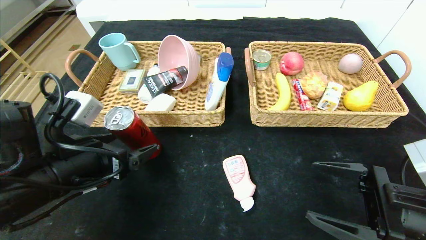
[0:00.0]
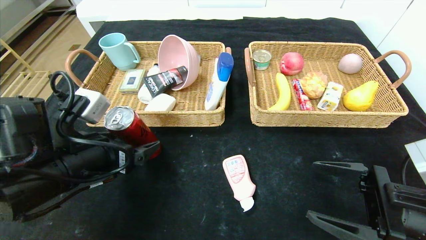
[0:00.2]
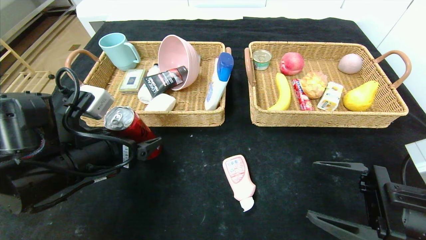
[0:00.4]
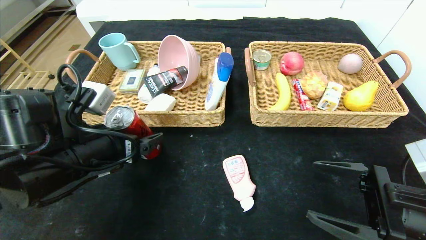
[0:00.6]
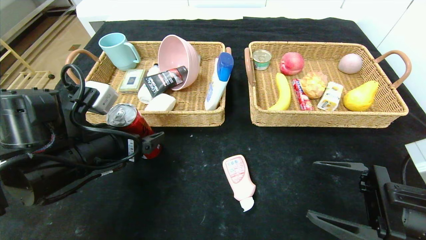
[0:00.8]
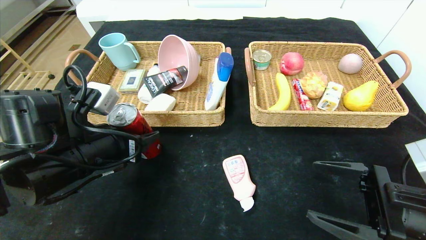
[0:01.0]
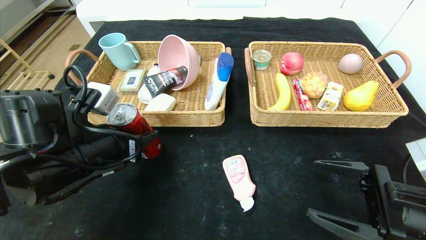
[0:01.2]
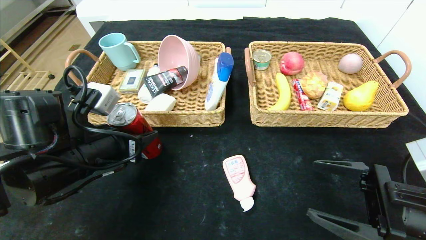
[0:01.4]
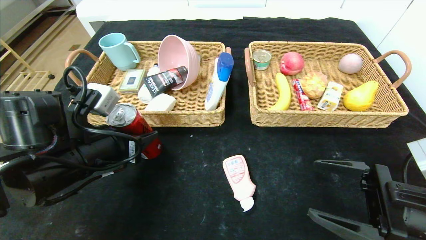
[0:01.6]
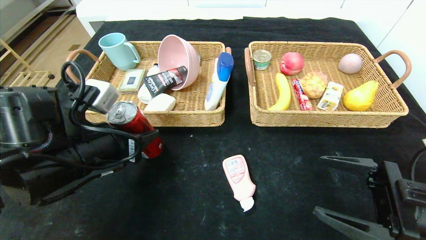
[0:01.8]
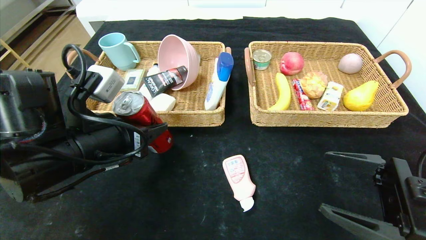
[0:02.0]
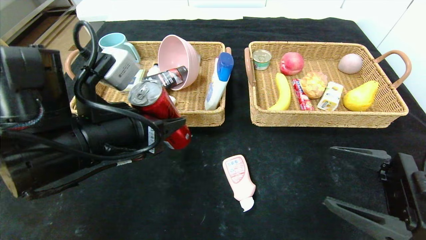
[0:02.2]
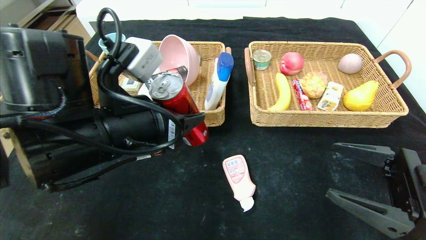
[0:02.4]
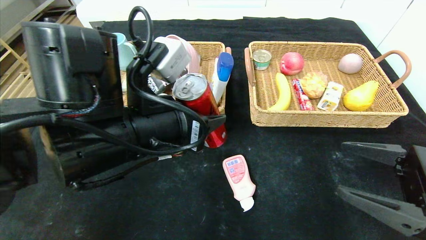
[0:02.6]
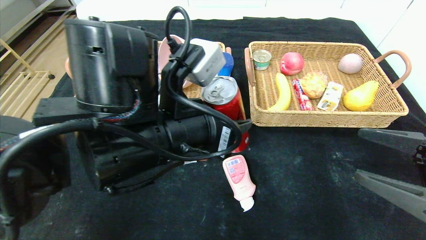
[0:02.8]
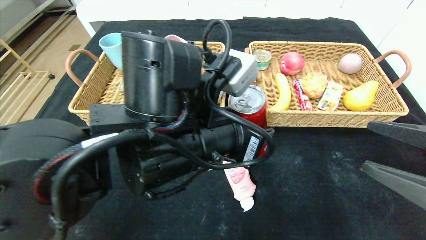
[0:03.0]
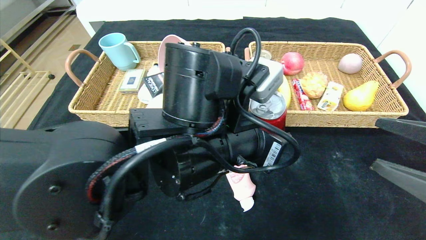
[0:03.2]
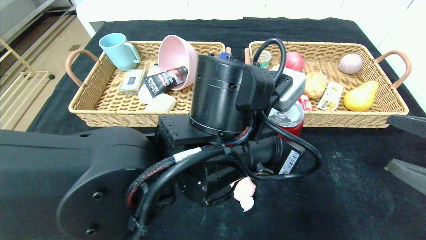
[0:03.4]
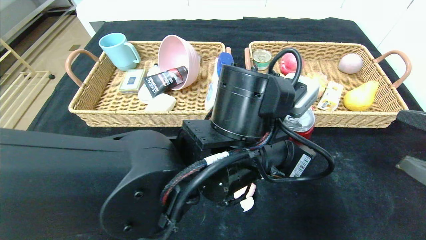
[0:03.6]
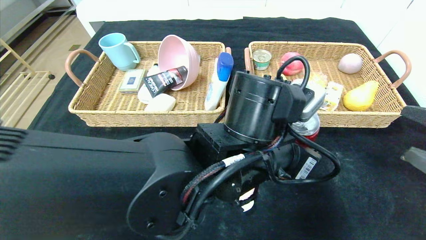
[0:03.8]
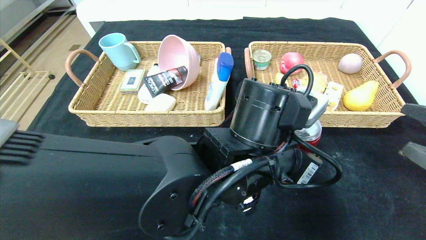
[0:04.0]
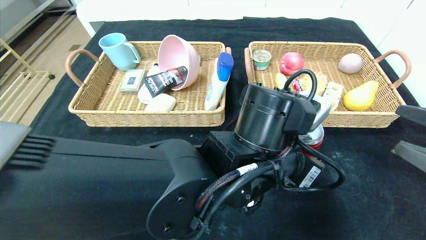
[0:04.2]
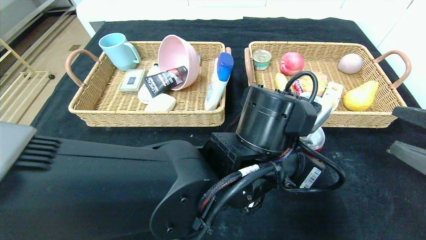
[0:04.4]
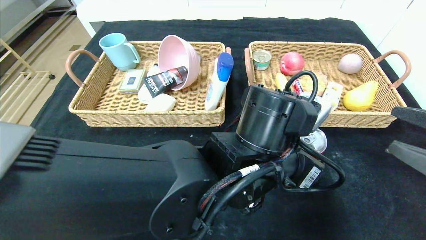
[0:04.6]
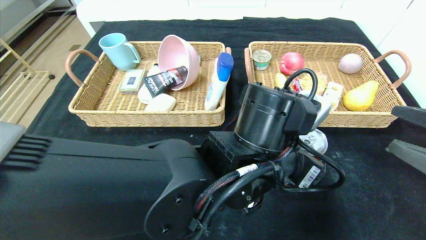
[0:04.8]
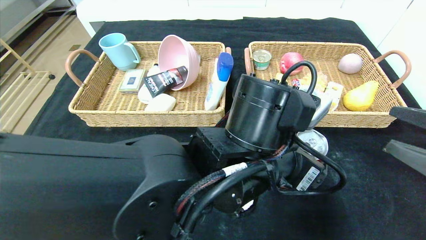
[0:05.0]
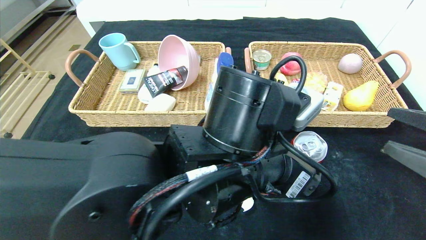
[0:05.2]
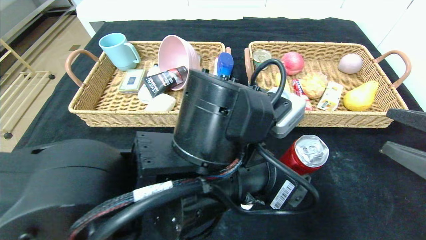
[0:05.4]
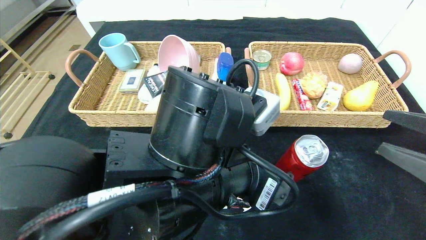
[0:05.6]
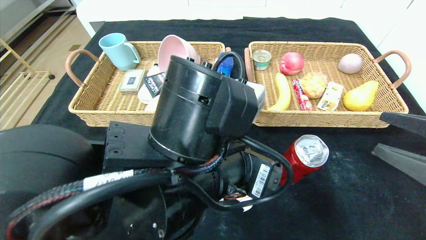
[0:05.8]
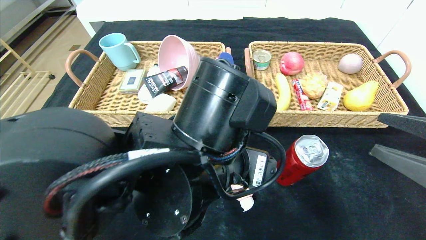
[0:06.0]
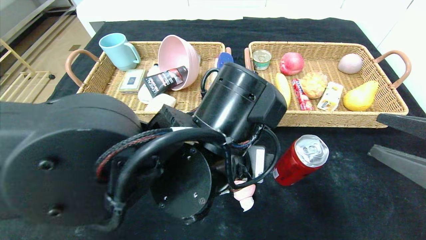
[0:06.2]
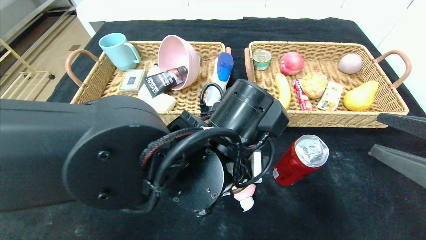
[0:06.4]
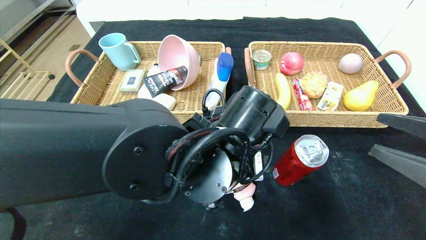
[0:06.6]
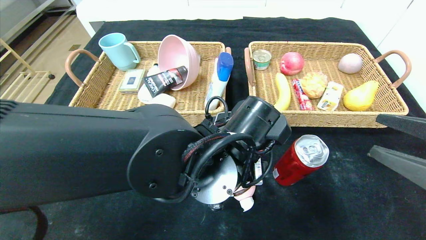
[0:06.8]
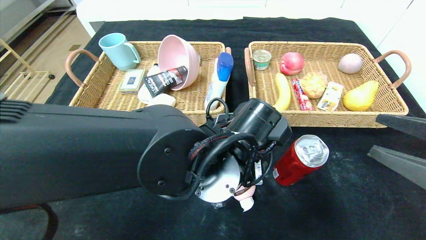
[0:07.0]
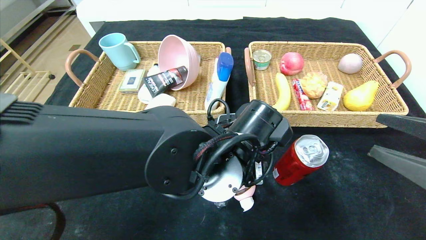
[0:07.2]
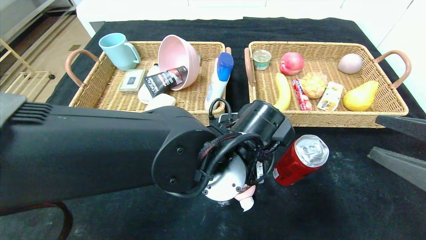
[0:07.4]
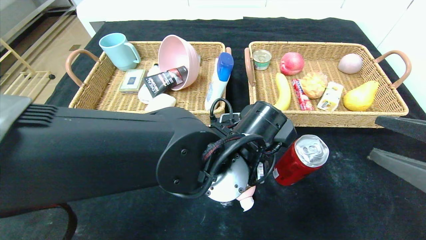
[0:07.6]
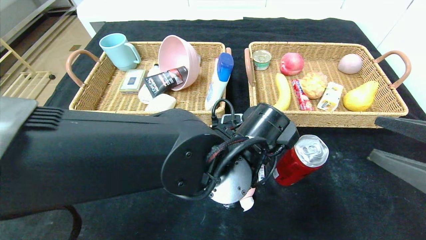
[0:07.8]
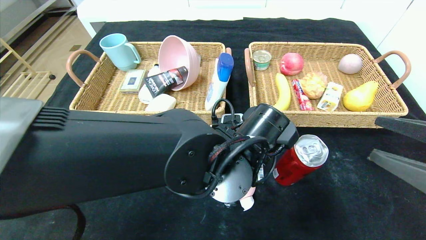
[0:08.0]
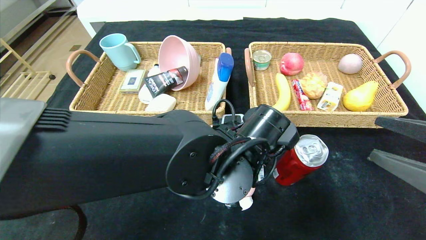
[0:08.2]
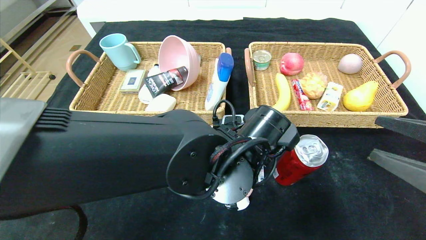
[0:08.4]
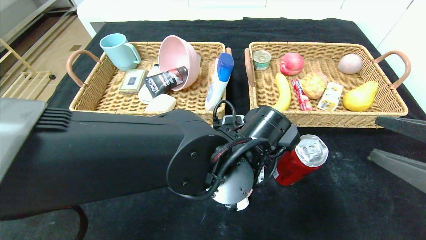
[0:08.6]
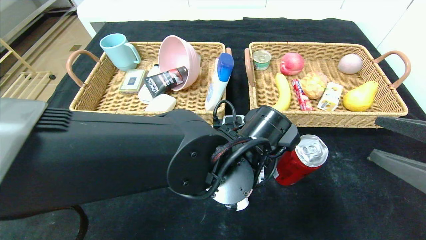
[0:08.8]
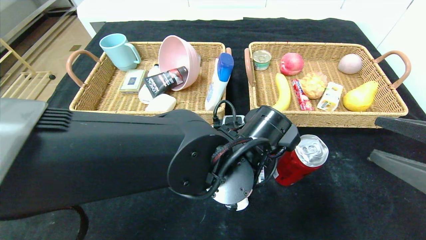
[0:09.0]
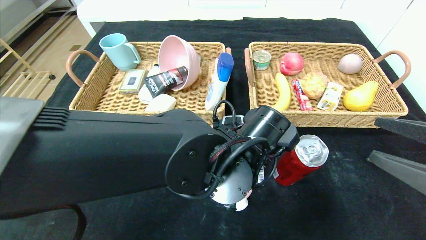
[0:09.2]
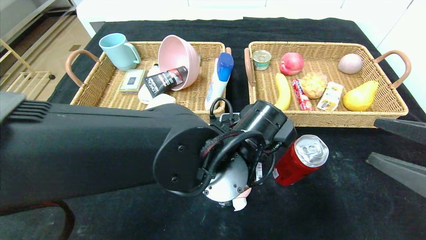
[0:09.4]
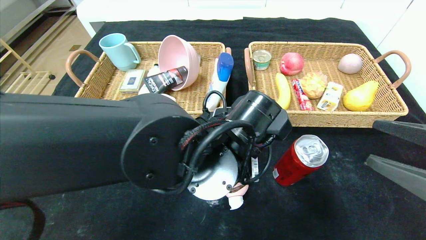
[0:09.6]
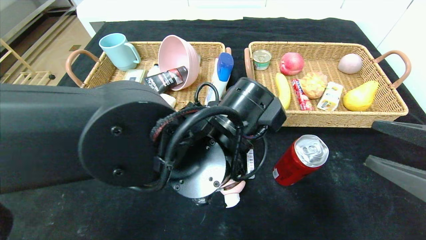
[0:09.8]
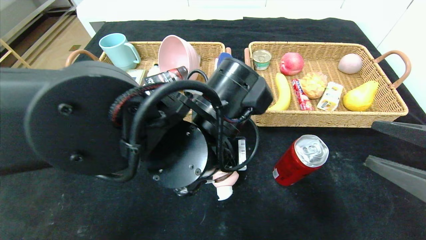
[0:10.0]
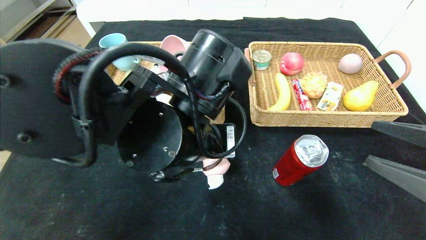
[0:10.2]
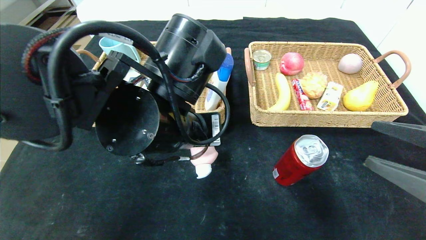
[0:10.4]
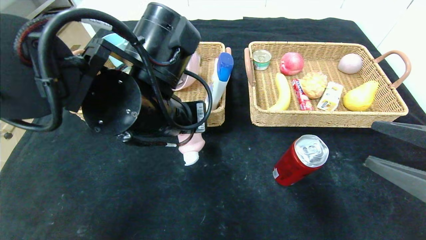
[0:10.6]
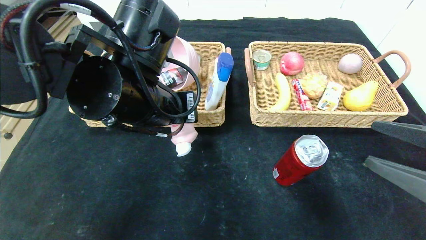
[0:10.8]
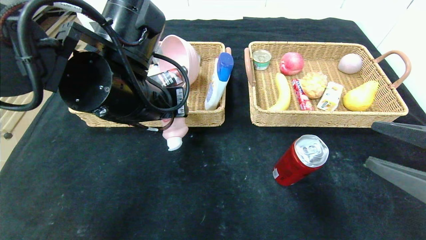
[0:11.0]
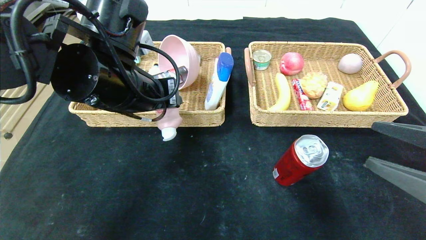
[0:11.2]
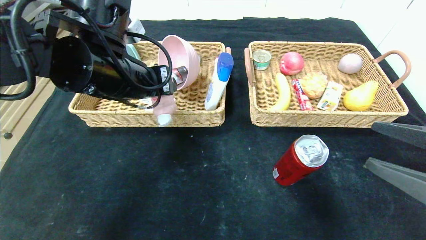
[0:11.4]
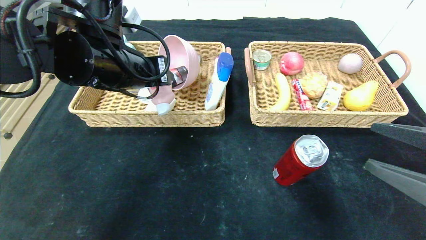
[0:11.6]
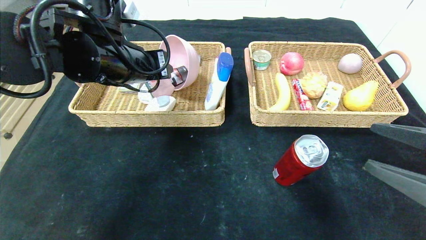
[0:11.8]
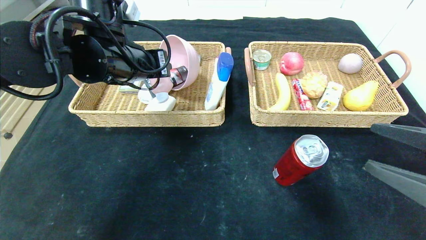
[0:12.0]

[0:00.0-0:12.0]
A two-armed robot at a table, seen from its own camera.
Step, 0:00.0 to 0:04.8: Place the canned cola in the center of the table.
0:00.0 to 0:01.6: The left gripper closes up.
0:01.6 to 0:03.0: The right gripper is displaced upward by roughly 5 cm. Meanwhile the left gripper travels to the right by roughly 20 cm.
0:03.0 to 0:04.4: The left gripper moves to the right, about 10 cm.
0:04.4 to 0:06.0: The left gripper shifts approximately 5 cm to the left, and opens.
0:06.0 to 0:07.6: The left gripper shifts by about 10 cm.
0:07.6 to 0:09.0: The left gripper closes.
0:09.0 to 0:10.4: The left gripper moves upward and to the left, some 15 cm.
0:10.4 to 0:12.0: The left gripper goes roughly 15 cm forward and to the left.

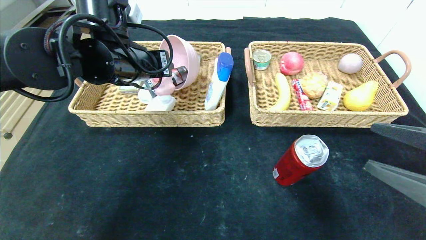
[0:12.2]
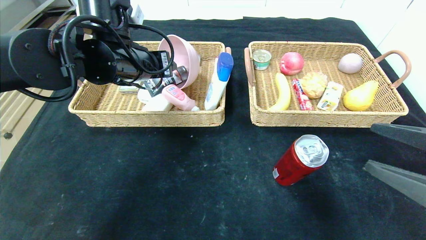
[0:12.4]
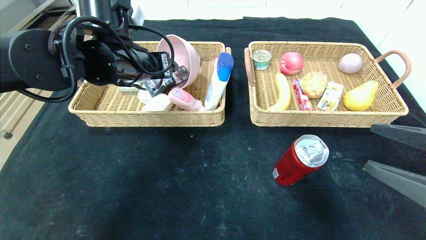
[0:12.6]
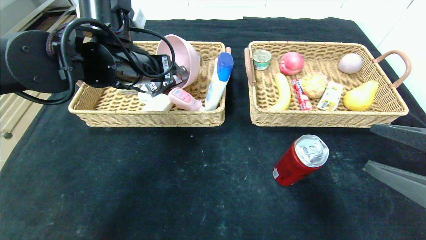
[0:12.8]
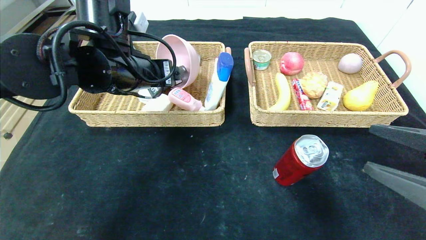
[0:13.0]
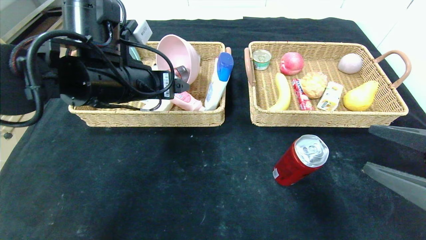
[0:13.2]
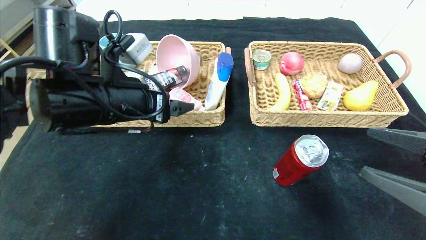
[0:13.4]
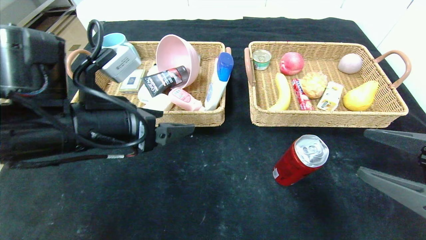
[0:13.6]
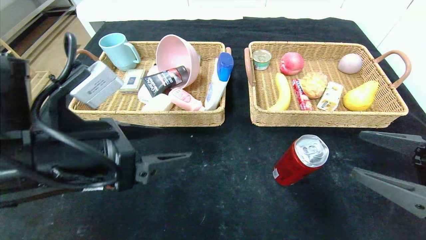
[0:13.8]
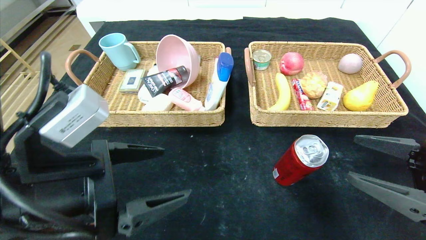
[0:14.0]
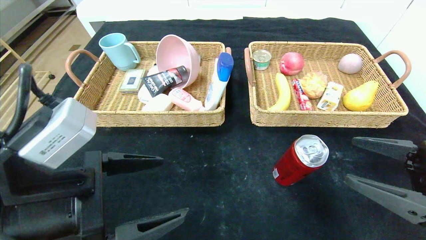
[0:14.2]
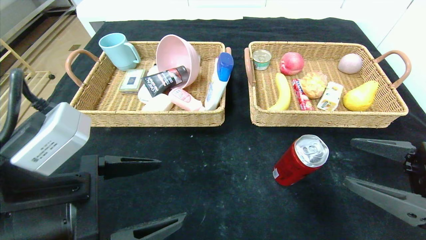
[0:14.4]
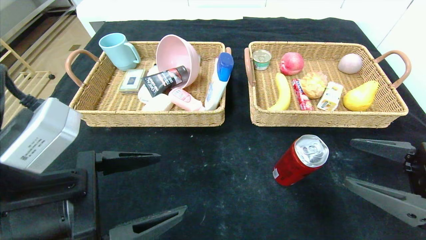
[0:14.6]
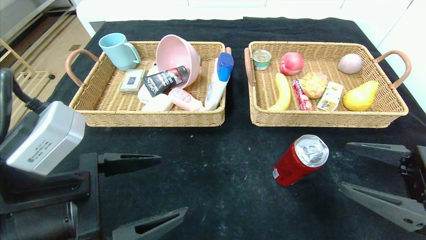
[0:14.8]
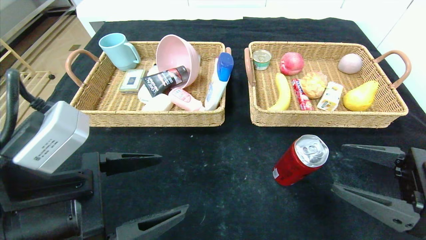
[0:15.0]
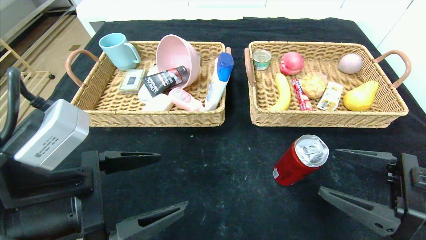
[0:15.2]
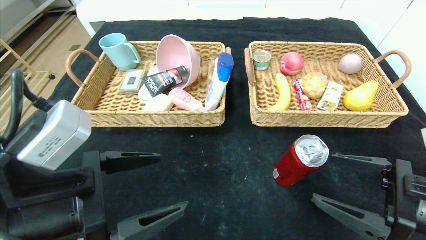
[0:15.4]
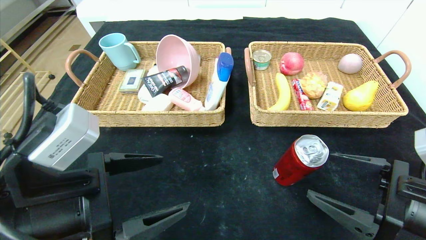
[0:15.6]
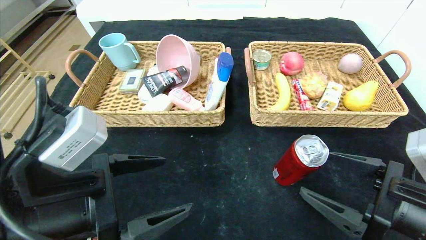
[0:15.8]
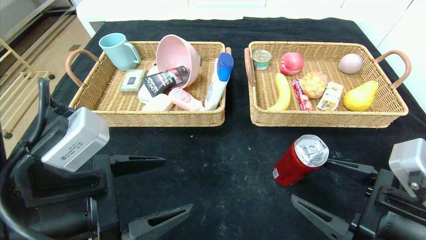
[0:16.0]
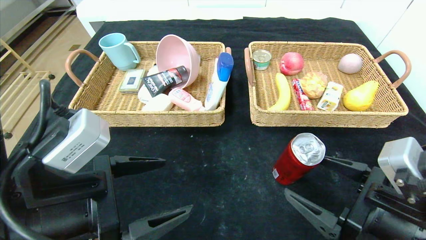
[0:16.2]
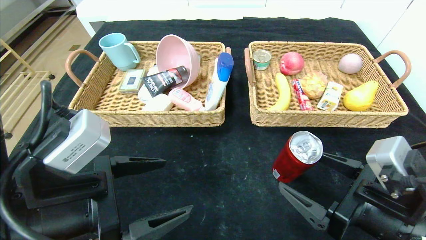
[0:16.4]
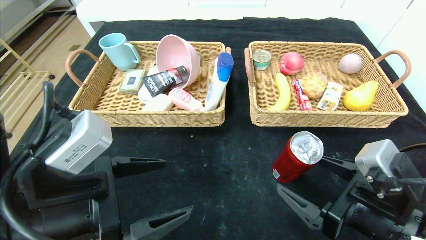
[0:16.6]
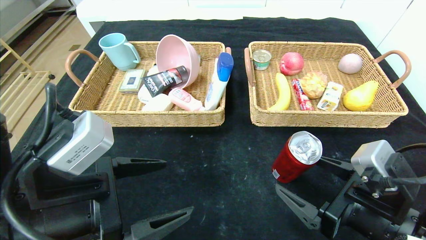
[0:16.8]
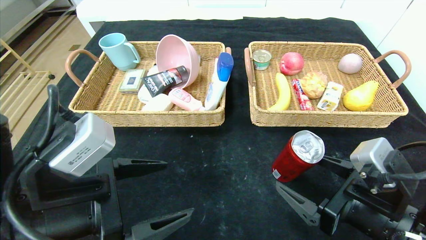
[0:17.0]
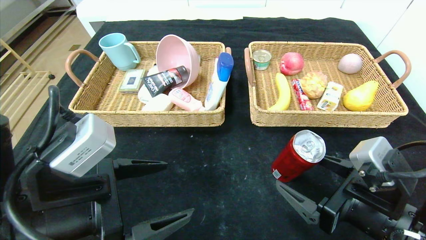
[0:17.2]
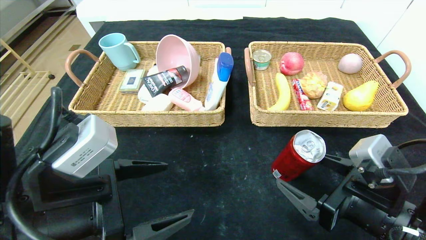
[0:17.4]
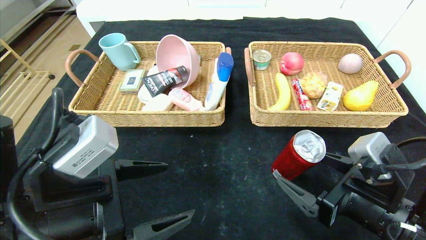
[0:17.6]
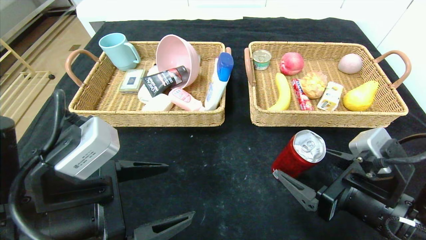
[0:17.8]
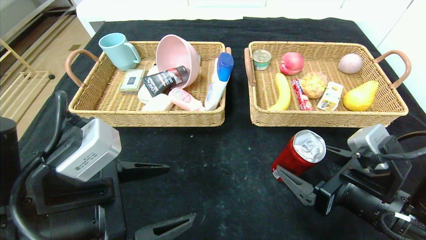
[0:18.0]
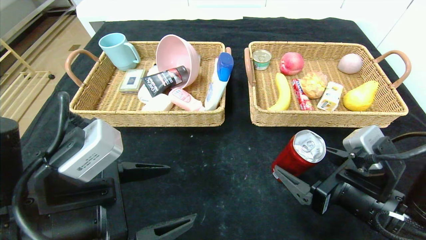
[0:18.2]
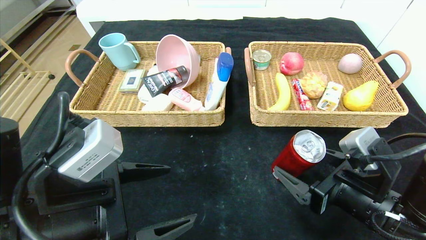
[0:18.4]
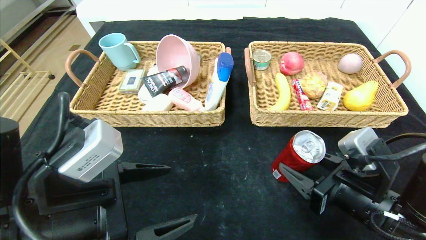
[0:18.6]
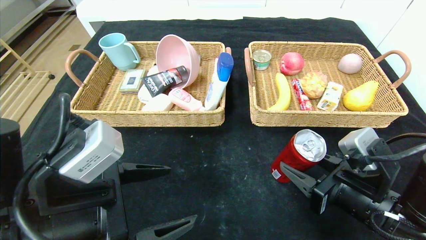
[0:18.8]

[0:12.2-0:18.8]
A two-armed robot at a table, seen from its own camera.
0:12.2 to 0:13.8: The left gripper is displaced backward and downward by about 15 cm, and opens.
0:13.8 to 0:15.4: The right gripper shifts by some 5 cm.
0:15.4 to 0:17.2: The right gripper heads to the left, covering approximately 5 cm.
0:17.2 to 0:18.8: The right gripper closes up.
